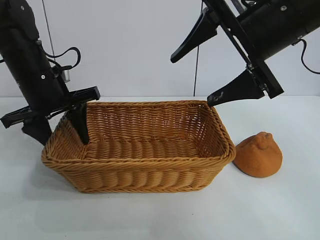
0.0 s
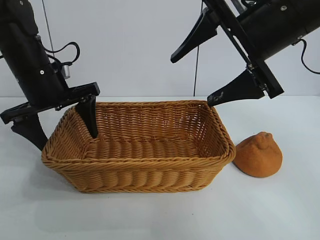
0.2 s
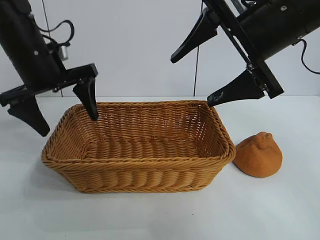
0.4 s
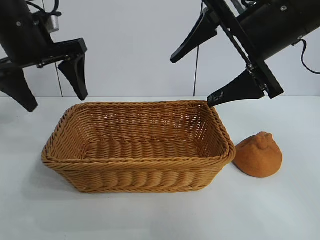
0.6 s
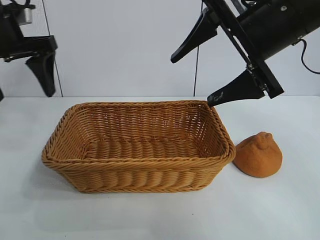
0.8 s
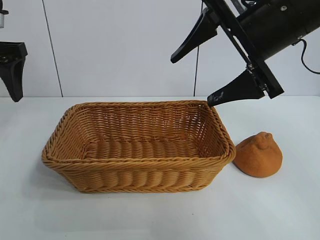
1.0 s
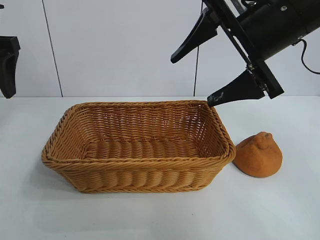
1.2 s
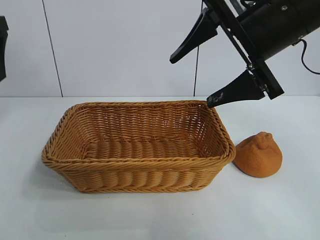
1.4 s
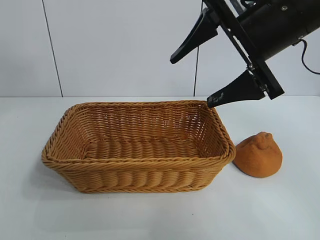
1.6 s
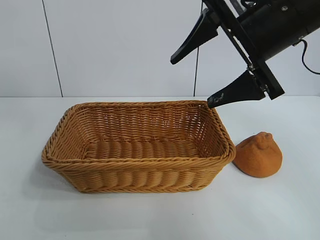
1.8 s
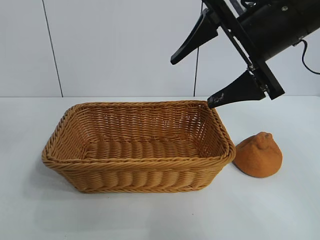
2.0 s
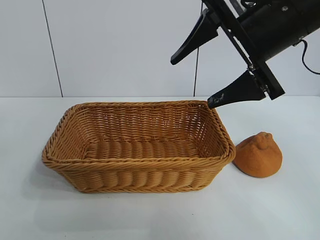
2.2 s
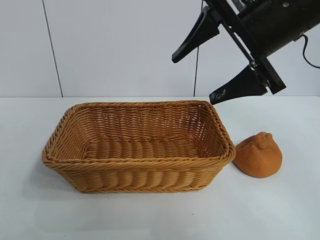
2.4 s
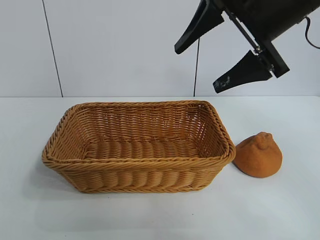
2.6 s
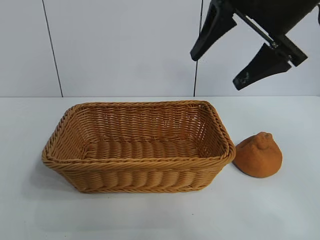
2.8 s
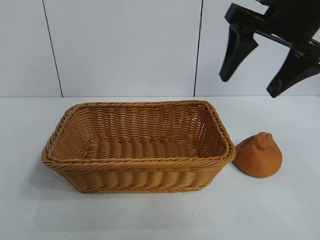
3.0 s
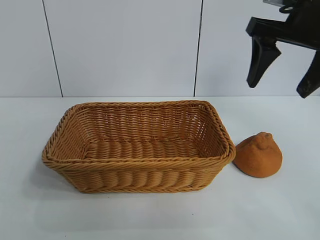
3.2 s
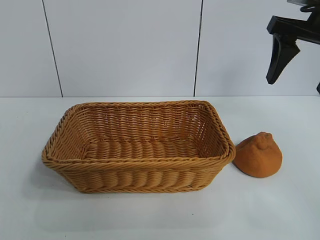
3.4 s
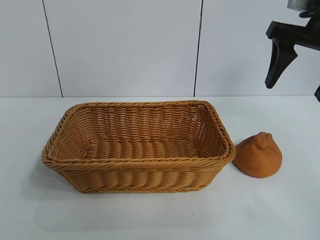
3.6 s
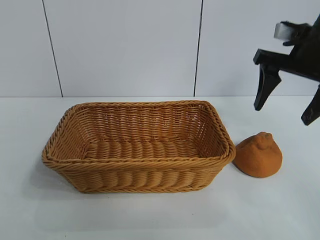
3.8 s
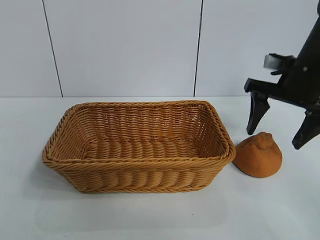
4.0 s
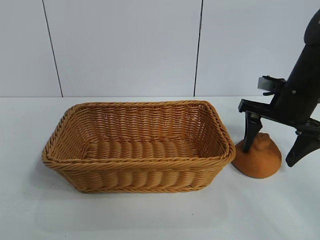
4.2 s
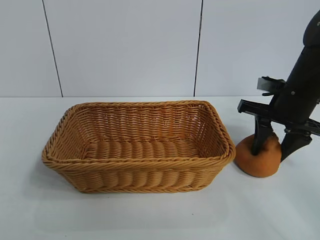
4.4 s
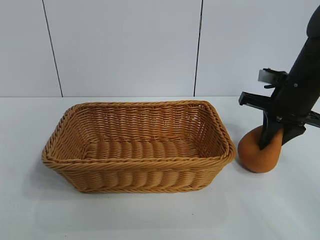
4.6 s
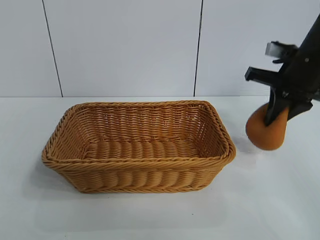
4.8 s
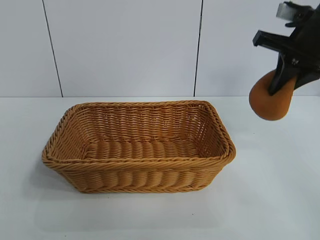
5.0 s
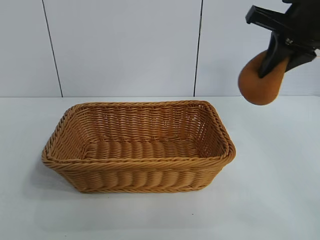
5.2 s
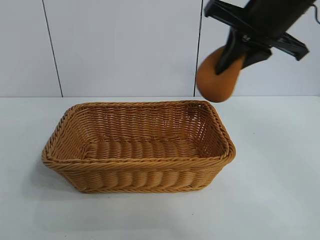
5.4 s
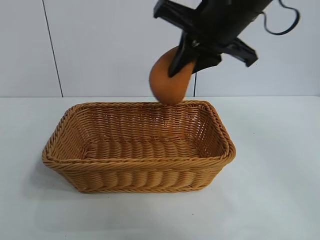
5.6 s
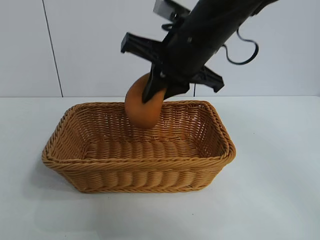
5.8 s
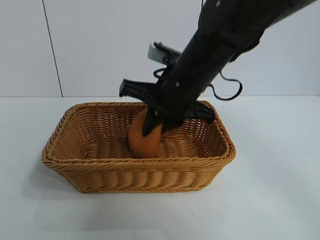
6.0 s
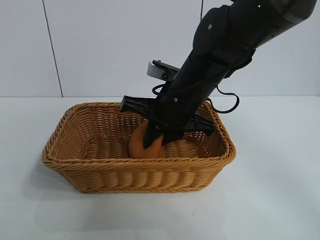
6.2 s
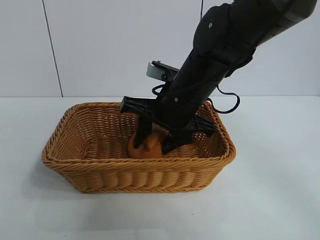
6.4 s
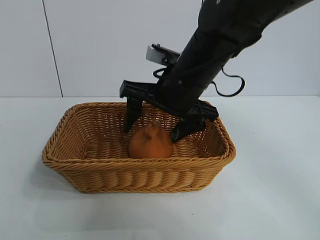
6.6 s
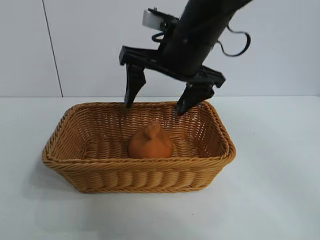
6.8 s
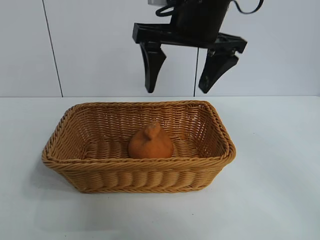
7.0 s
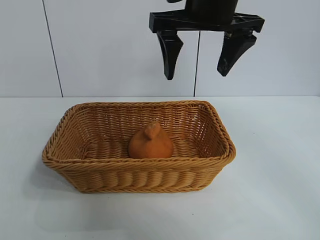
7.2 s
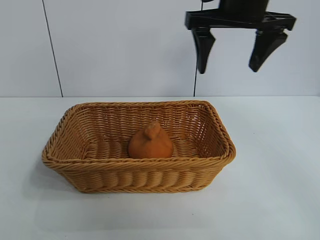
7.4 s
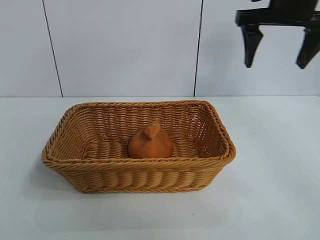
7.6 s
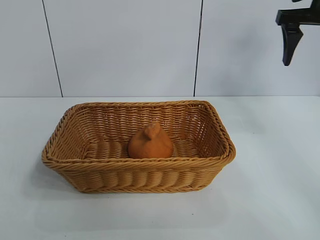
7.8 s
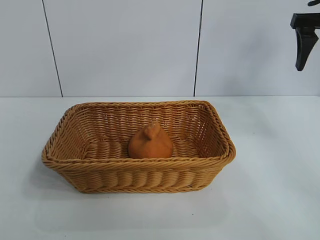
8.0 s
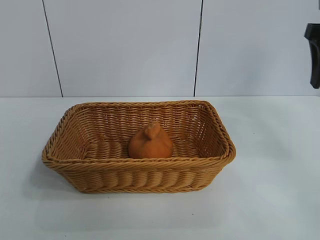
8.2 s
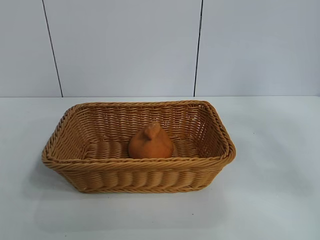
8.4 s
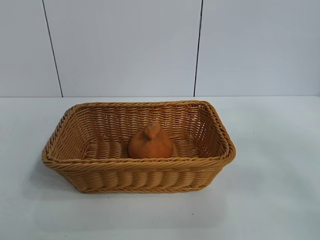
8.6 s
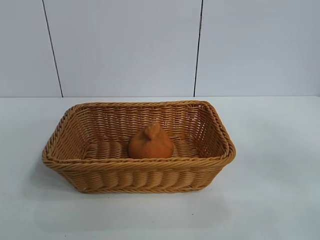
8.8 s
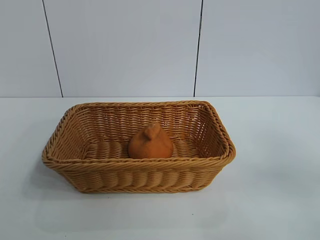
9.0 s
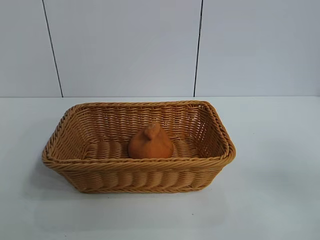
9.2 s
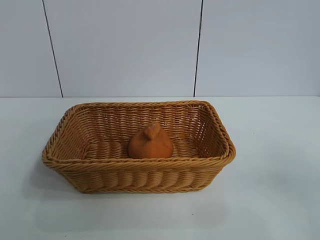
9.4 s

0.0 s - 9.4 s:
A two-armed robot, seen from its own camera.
Task of the whole recording: pick up the orange and put it into the basket.
Step, 0.2 s - 4.4 s: Grasp the orange with right gripper.
Step, 4.8 s - 6.8 s: Place the orange in the basket with right gripper.

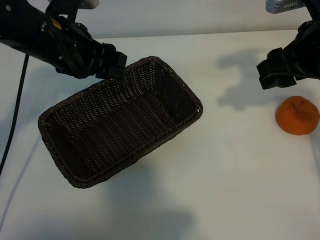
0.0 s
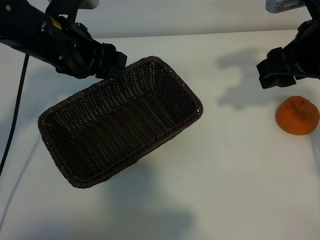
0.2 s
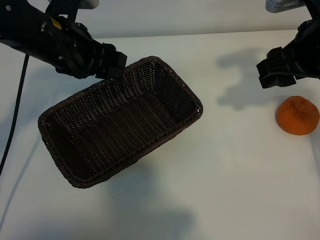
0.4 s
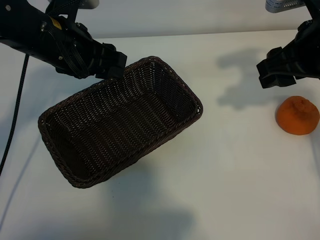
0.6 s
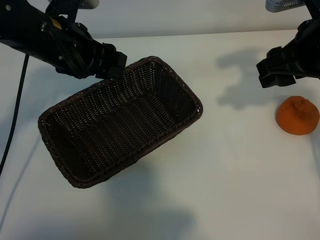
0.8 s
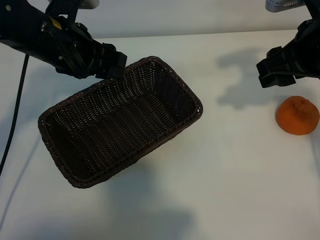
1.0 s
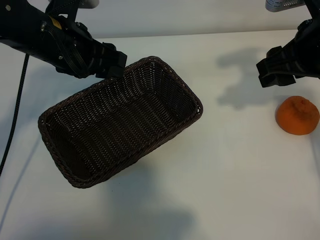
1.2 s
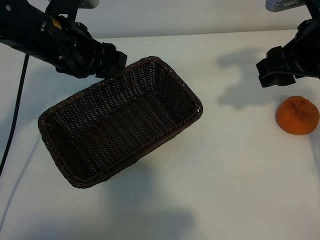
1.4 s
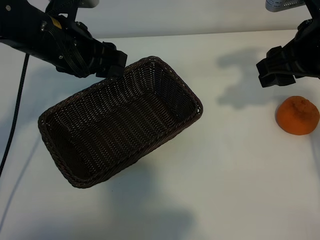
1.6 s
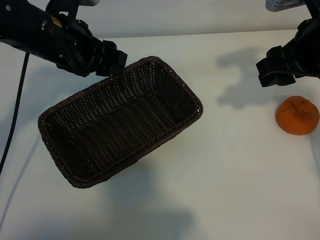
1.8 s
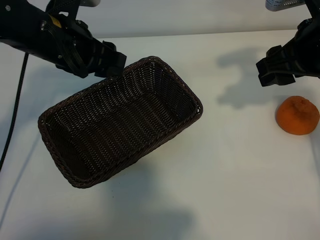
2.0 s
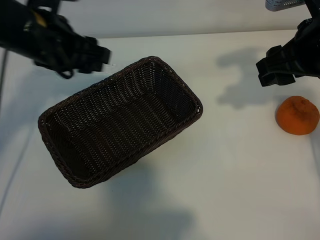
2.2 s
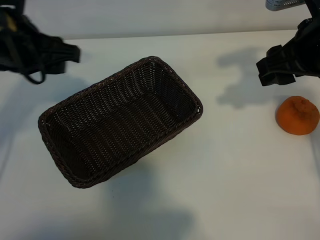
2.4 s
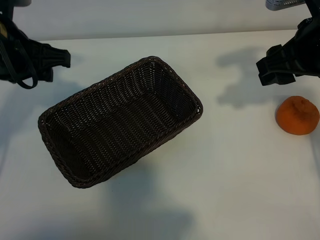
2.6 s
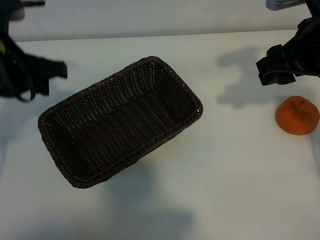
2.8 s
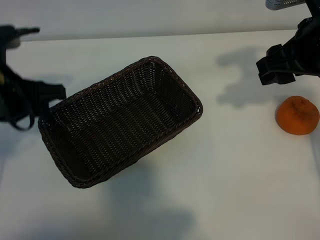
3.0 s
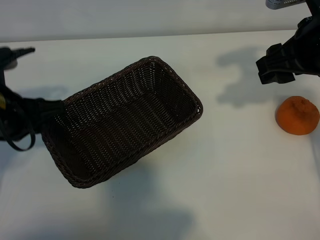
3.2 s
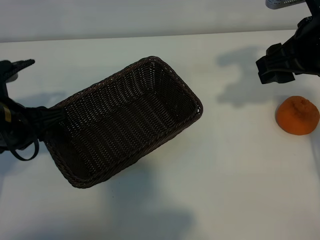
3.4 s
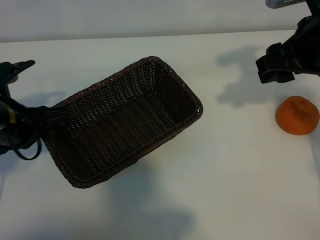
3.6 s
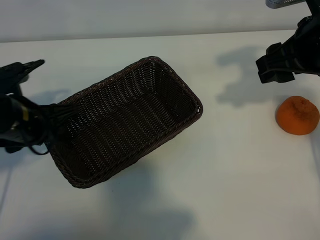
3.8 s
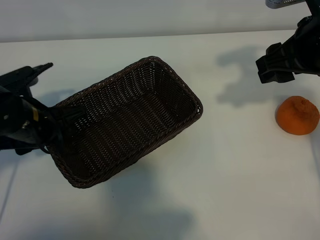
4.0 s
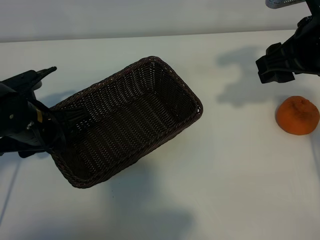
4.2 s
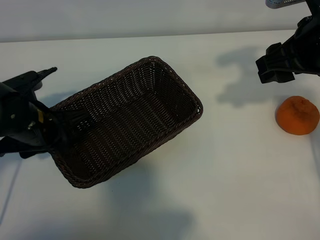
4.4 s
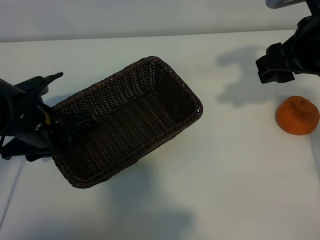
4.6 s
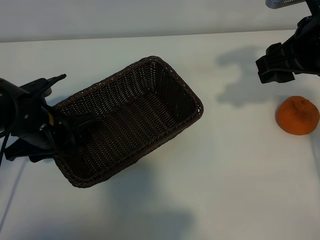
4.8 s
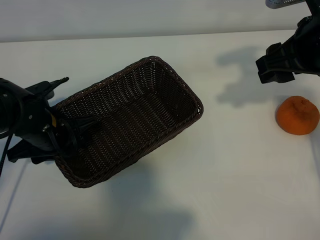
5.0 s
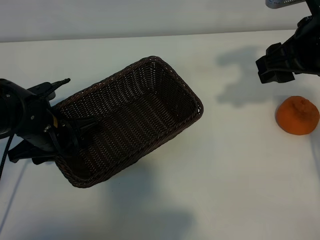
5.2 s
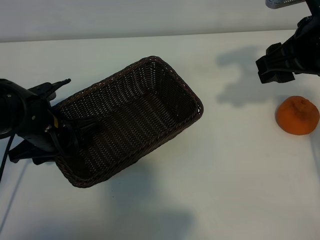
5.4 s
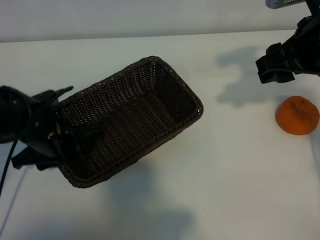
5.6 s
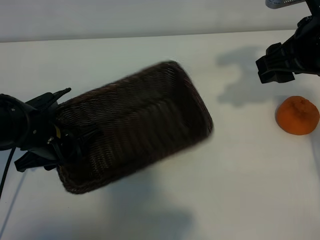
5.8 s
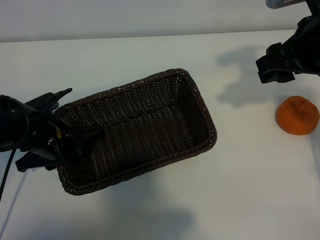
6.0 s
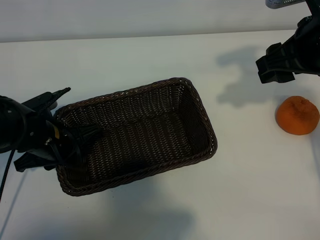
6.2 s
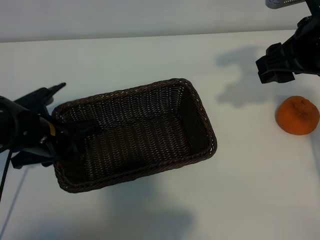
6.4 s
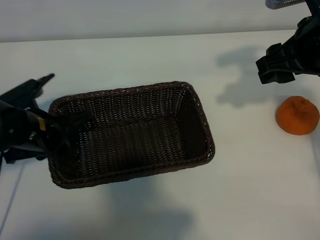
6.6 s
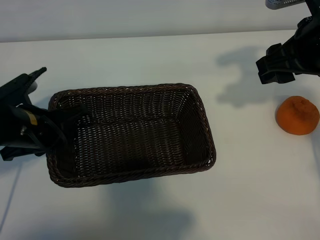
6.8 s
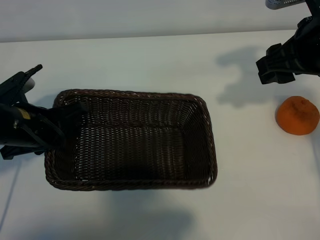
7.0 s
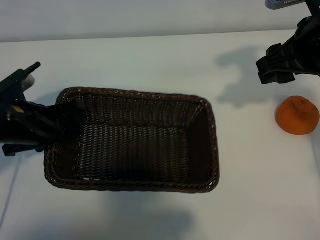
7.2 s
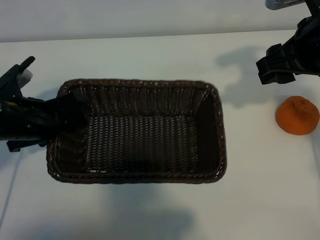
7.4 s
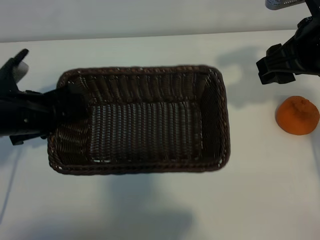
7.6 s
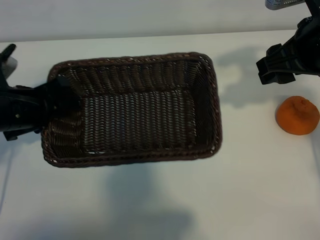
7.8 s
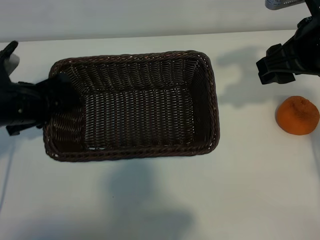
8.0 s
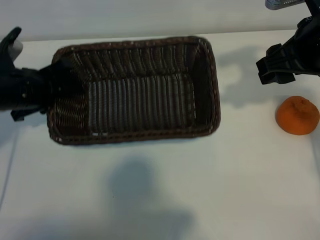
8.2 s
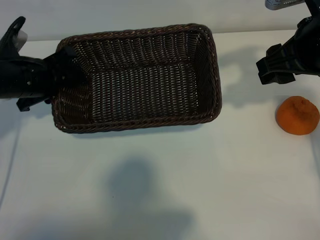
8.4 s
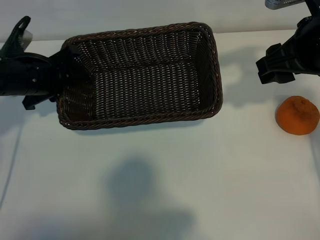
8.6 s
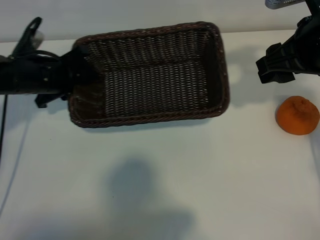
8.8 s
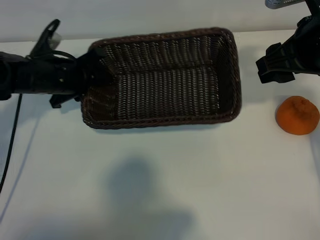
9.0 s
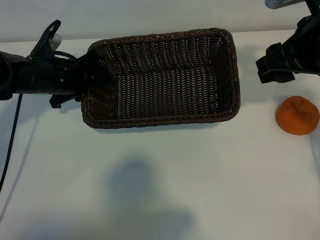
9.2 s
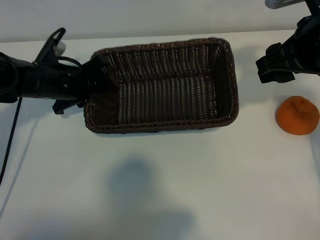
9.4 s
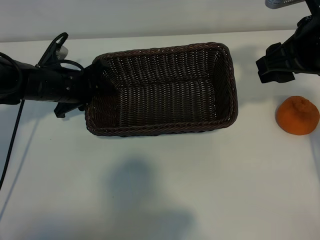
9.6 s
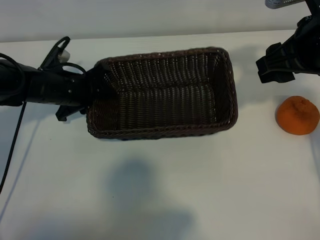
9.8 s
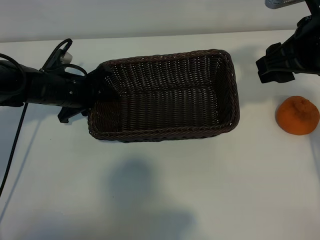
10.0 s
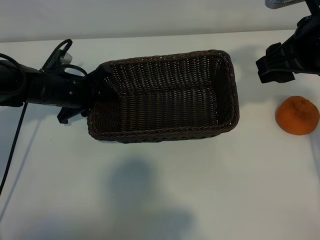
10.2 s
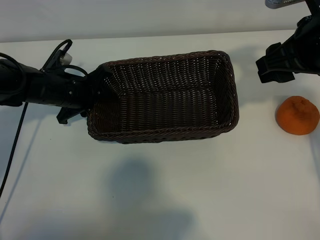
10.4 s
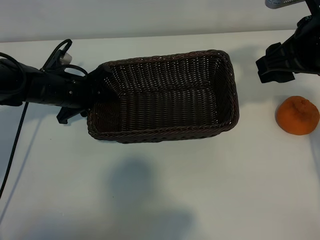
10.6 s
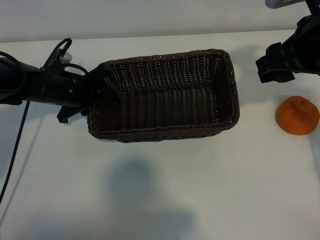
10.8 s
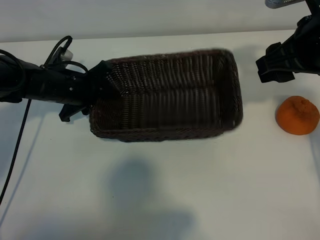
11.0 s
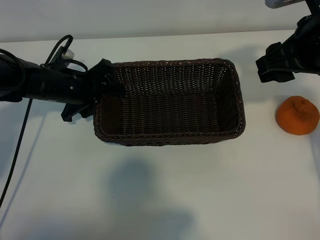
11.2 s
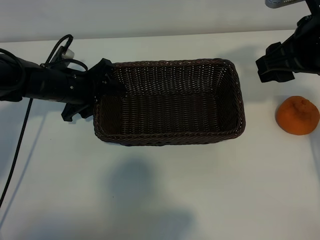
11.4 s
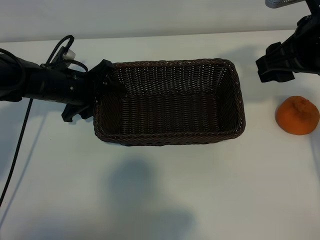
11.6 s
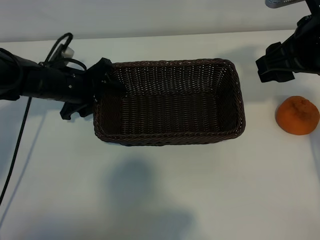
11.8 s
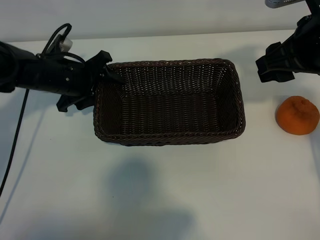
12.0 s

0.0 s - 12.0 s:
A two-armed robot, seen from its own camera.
Task of the whole recording: pick up the orange and put it into the basket.
Step, 1.2 s - 5.8 s: Grasp the basket with left gripper.
Step, 6.0 s - 11.2 s: Place the basket in the center of view with left gripper.

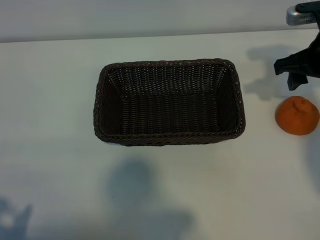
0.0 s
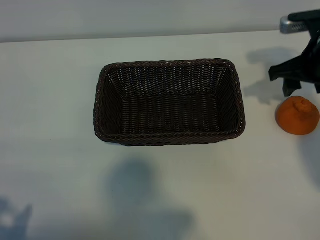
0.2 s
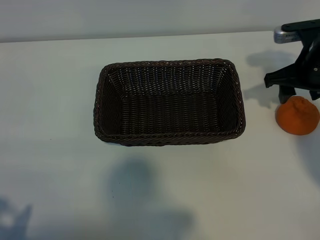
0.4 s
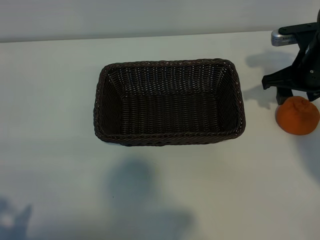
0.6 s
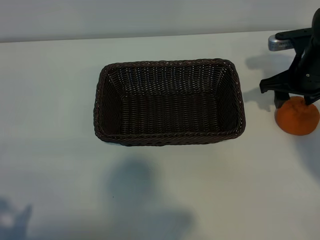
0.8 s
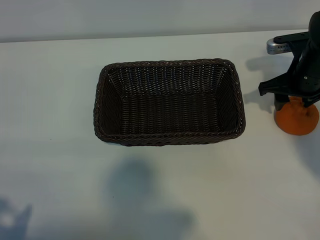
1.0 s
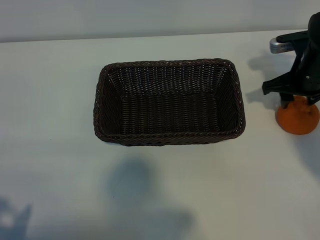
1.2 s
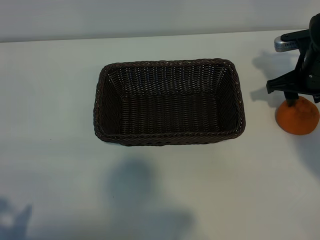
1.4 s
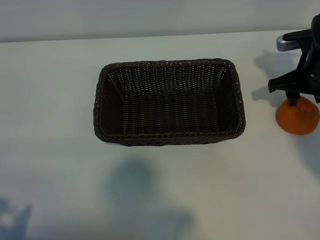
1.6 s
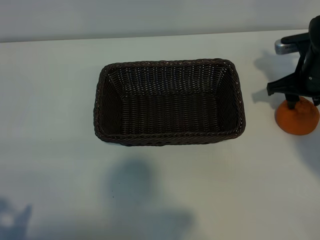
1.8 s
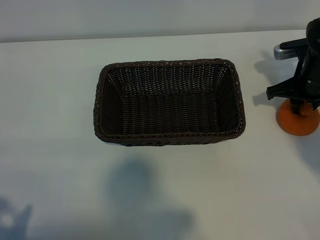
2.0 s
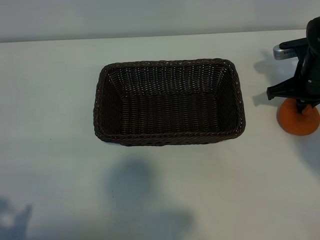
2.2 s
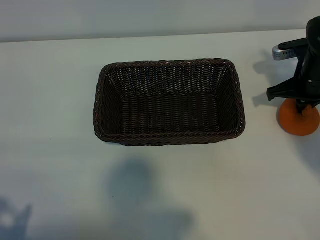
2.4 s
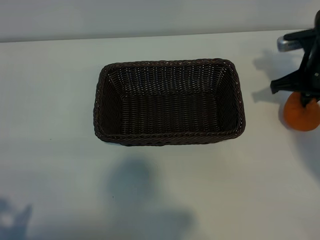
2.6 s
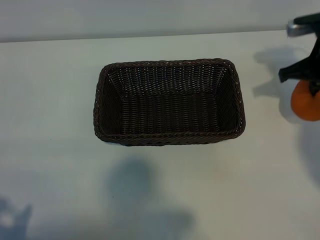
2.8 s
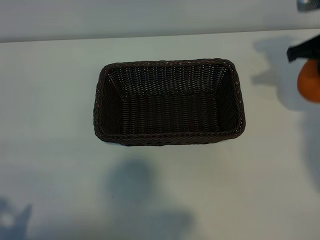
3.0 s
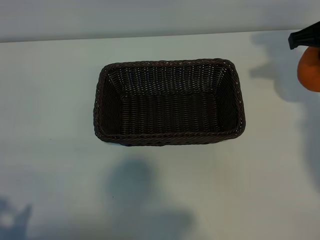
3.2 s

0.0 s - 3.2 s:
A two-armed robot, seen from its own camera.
Task of the whole recording: pick up the orange and put it into the basket.
Step, 0.0 s - 2.0 s: Grasp the orange with right gripper.
